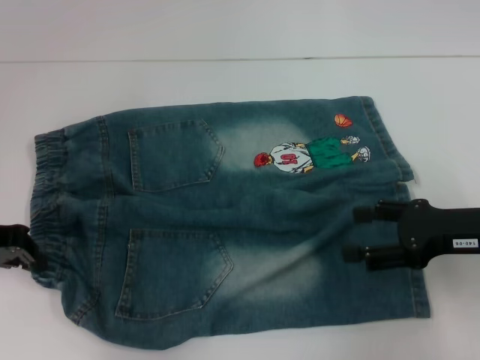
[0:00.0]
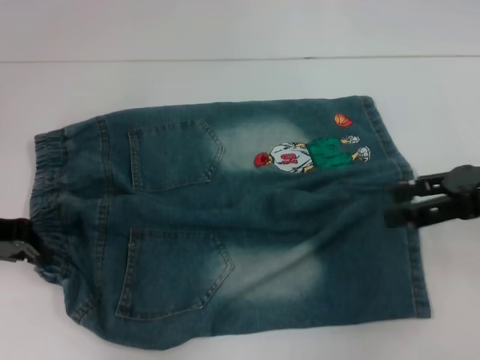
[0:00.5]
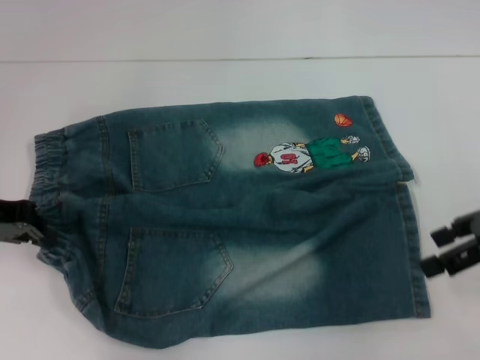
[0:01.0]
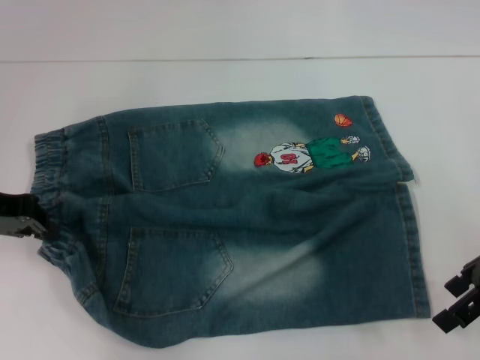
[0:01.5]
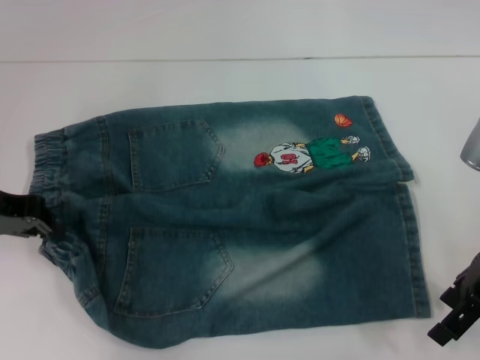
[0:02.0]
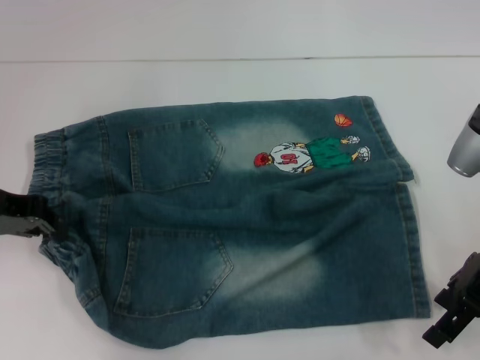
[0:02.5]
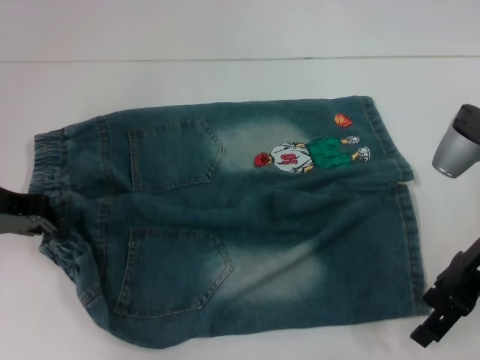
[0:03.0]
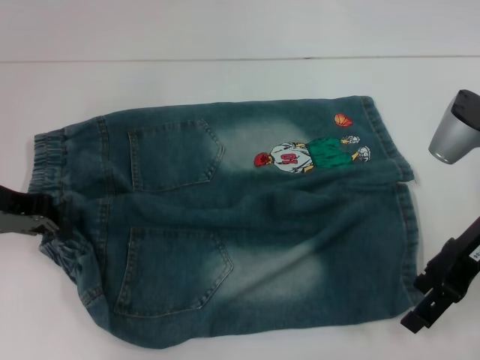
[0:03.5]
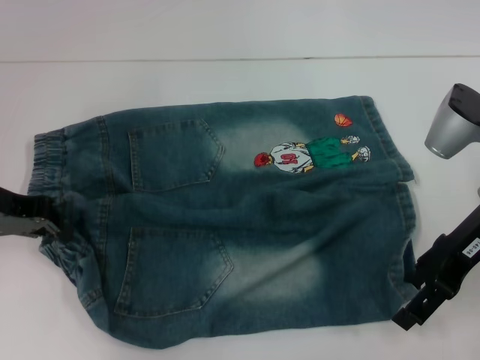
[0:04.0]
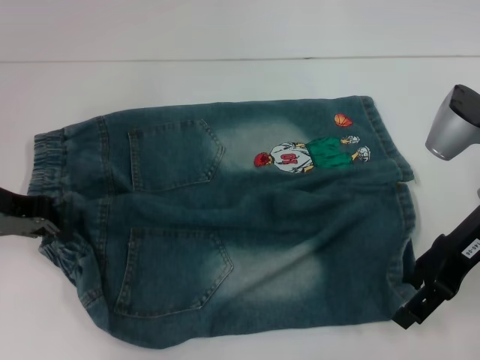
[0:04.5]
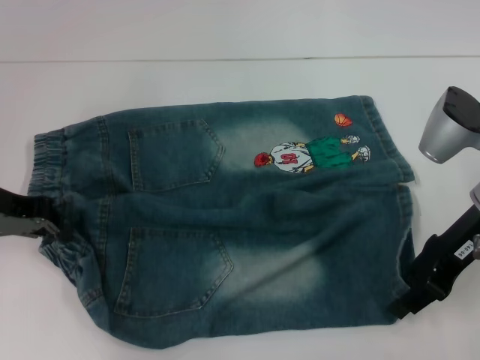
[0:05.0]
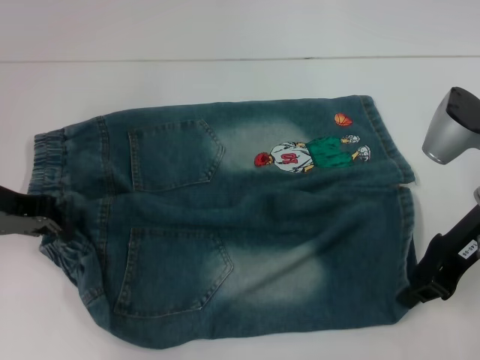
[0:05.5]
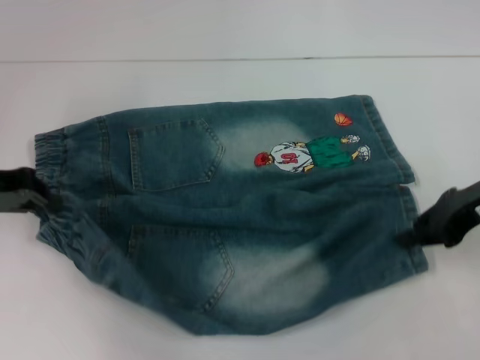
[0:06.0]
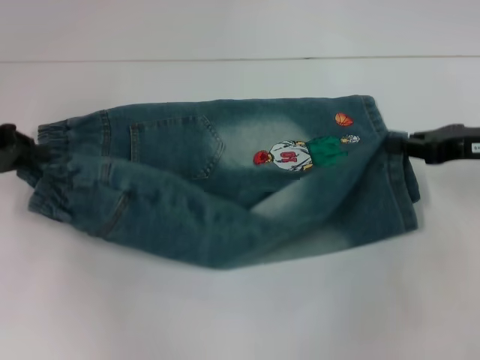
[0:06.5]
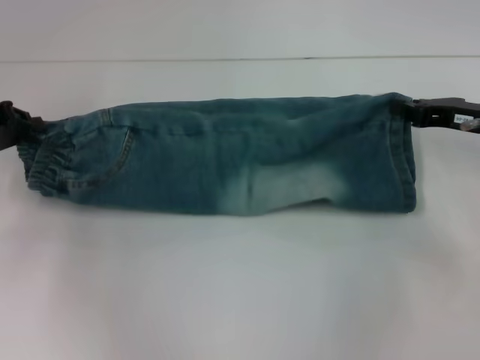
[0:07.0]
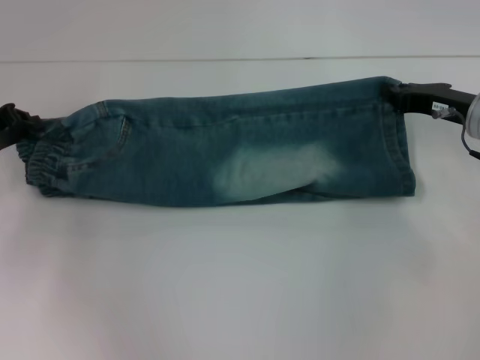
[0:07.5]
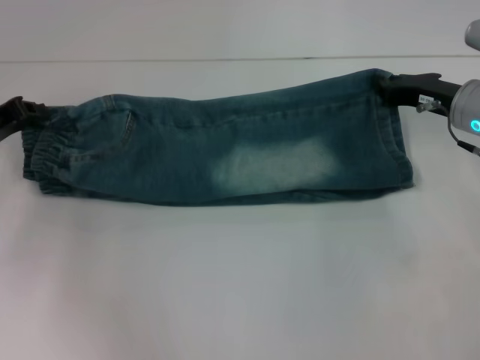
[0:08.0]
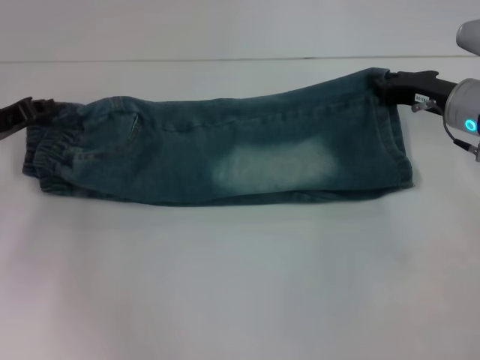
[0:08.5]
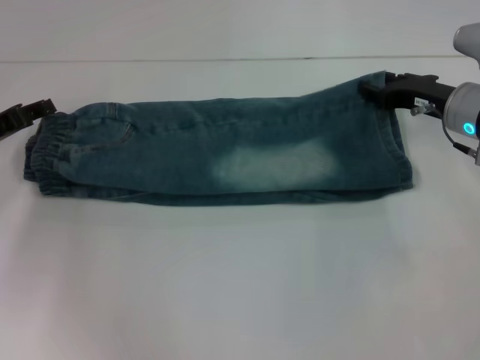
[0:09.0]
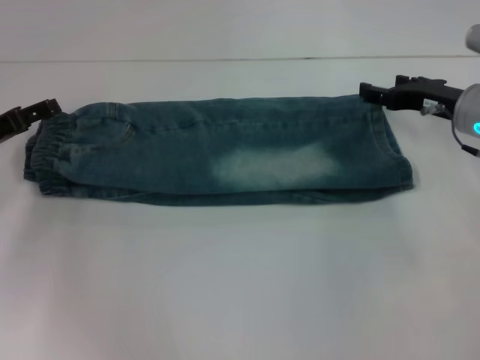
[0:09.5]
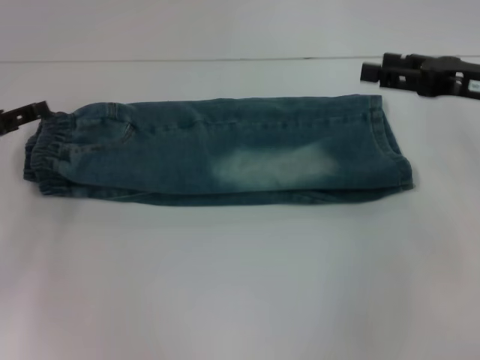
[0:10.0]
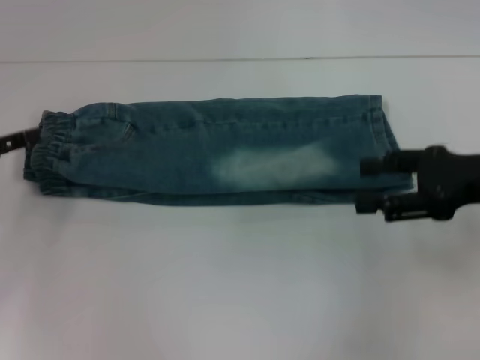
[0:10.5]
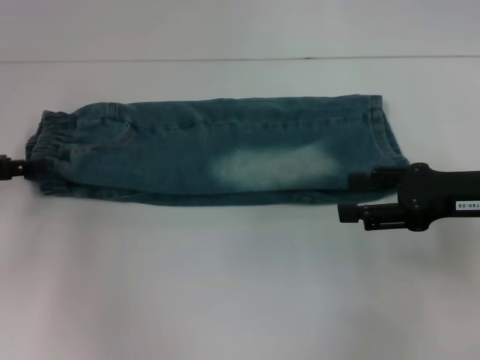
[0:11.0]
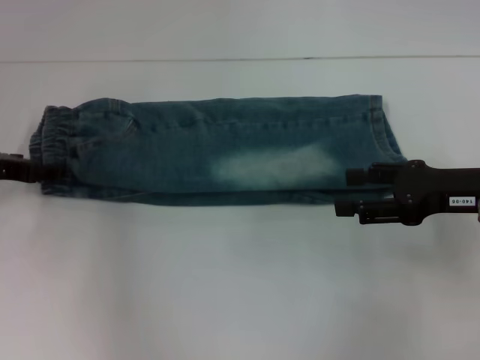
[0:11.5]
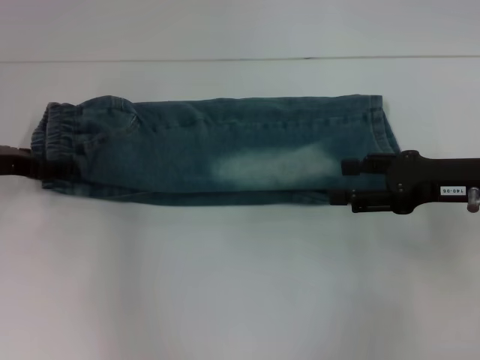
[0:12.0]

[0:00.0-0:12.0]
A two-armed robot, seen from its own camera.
Step, 0:00.5 to 0:05.5: Grab the lower right pant leg with your right hand.
Step, 0:06.0 to 0:09.0: Fold upward with your right hand.
0:02.0 to 0:04.0: The grippers move only a little.
0:04.0 to 0:06.0: The right gripper closes.
0:06.0 to 0:08.0: The right gripper heads forward, covering about 5 cm, while the left gripper shifts by roughly 5 cm.
0:08.0 to 0:10.0: The left gripper opens its fingers; the right gripper heads upward, covering some 5 cm, and opens its fingers.
0:10.0 to 0:12.0: The left gripper moves about 5 cm; the right gripper shifts roughly 5 cm backward.

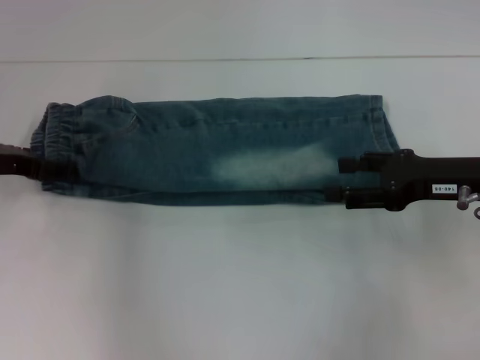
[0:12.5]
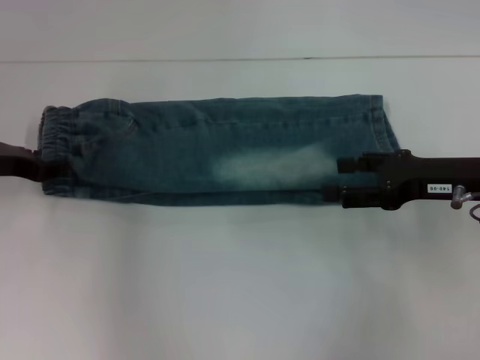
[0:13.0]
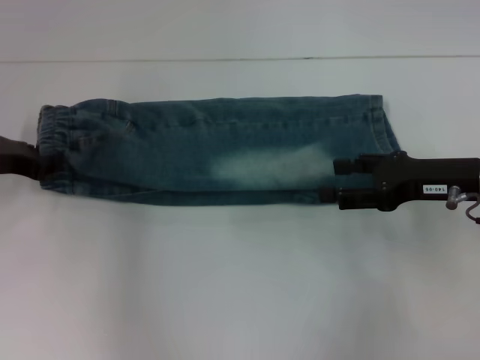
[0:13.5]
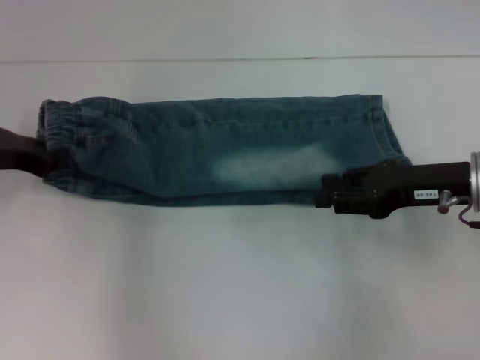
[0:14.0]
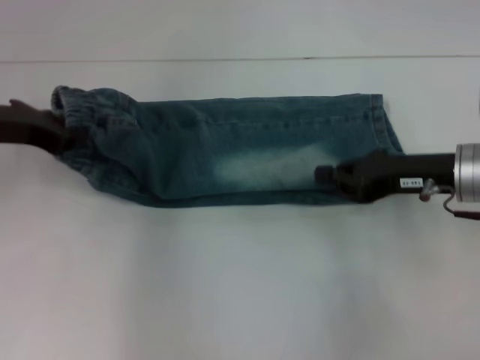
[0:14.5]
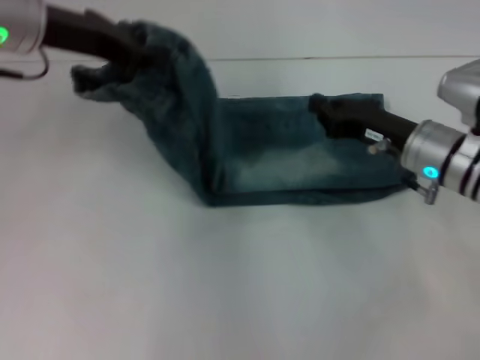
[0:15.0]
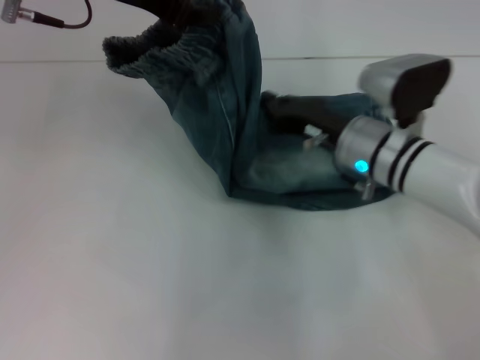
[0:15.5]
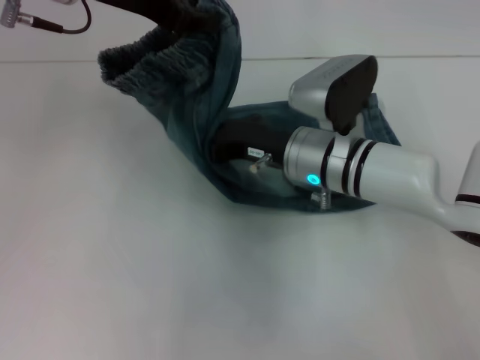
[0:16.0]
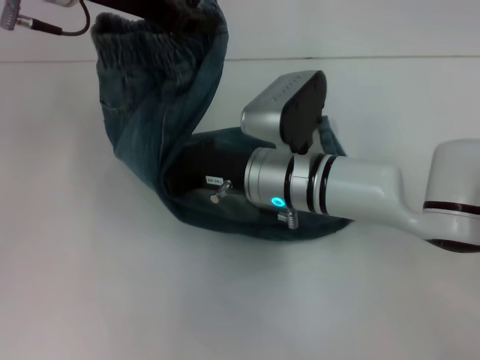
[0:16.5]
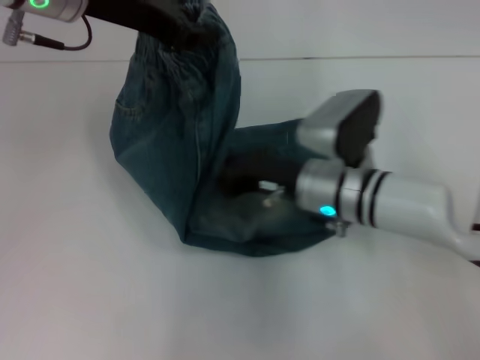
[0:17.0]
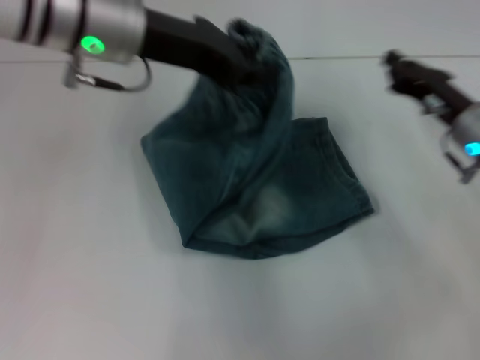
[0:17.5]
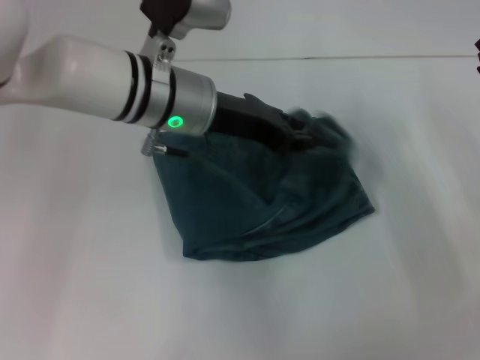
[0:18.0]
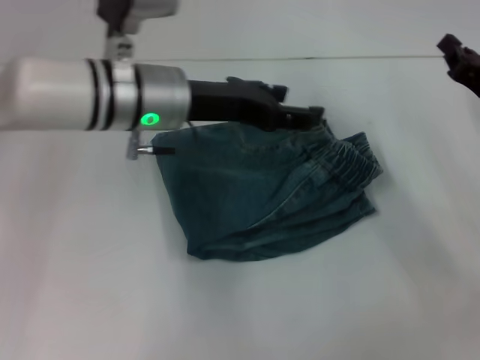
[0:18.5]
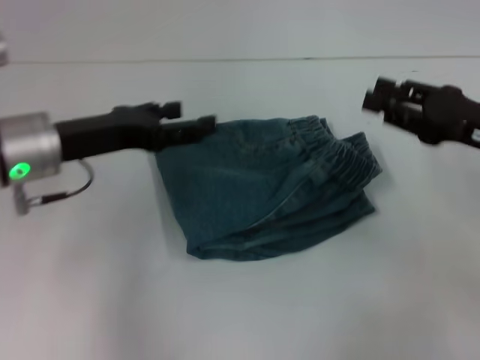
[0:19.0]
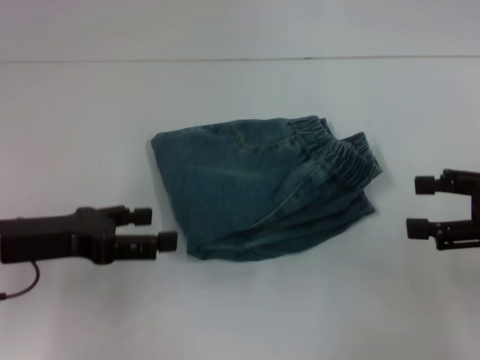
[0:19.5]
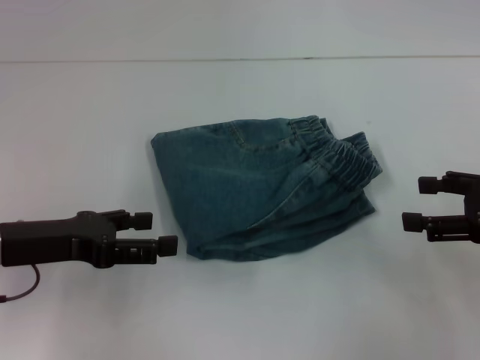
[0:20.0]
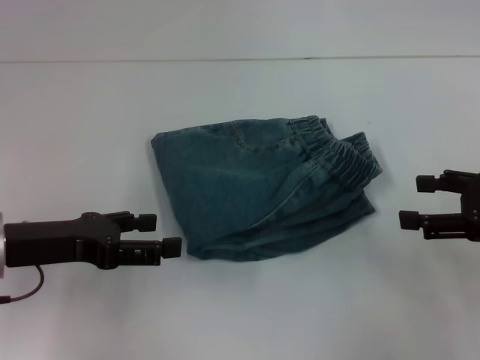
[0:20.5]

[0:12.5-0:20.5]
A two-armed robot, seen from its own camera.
Step, 0:14.0 to 0:17.0: Press the middle of the pants with your right hand.
Step, 0:17.5 to 0:18.0: Fold to the right with your left hand.
0:12.5 to 0:14.5: The left gripper is displaced upward by roughly 5 cm, and closes its fingers; the right gripper closes.
0:14.5 to 0:16.5: The left gripper shifts approximately 15 cm upward and to the right. Meanwhile the right gripper moves to the left, some 20 cm.
0:16.5 to 0:18.5: The right gripper shifts some 25 cm to the right, while the left gripper moves downward and to the right, about 15 cm, and opens up.
0:18.5 to 0:20.5: The right gripper is displaced backward by some 10 cm, and opens its fingers, while the left gripper moves to the left and backward, roughly 20 cm.
